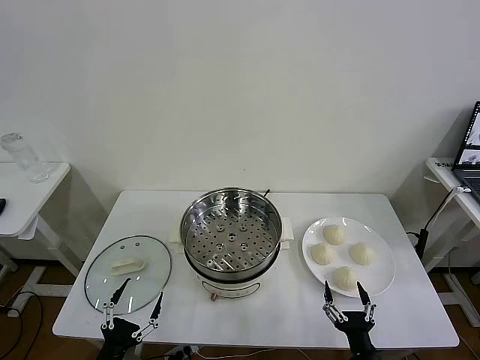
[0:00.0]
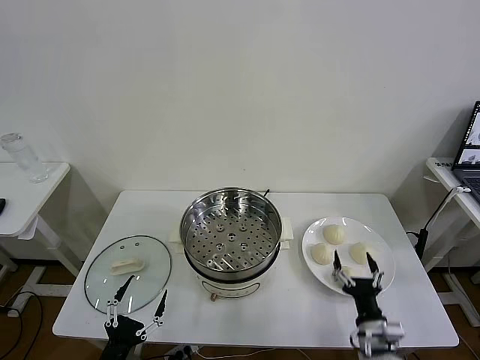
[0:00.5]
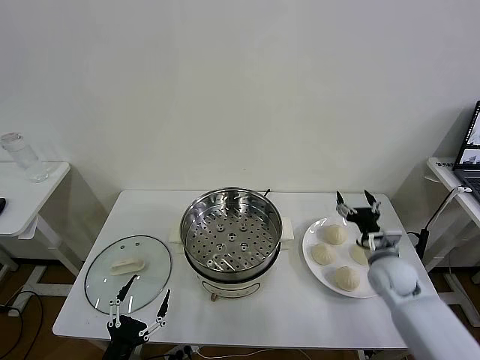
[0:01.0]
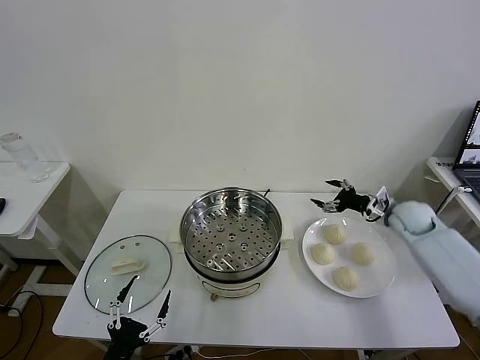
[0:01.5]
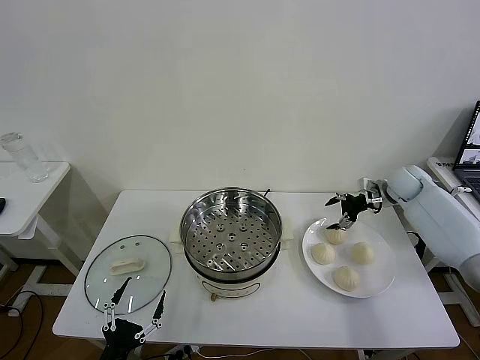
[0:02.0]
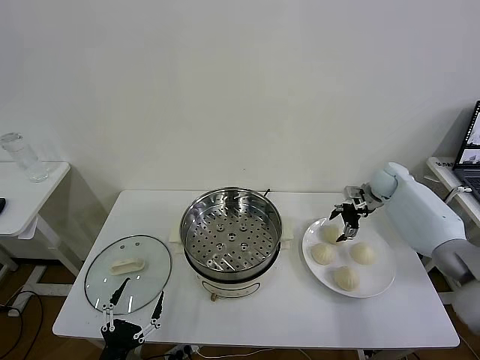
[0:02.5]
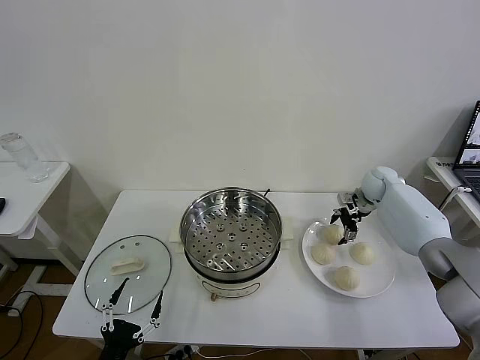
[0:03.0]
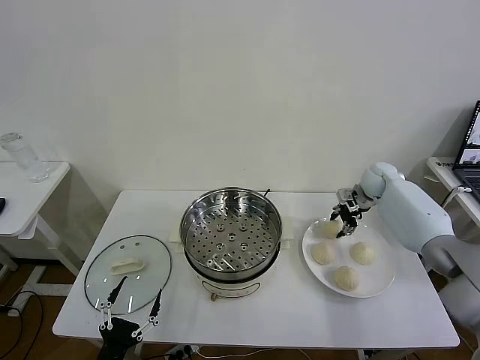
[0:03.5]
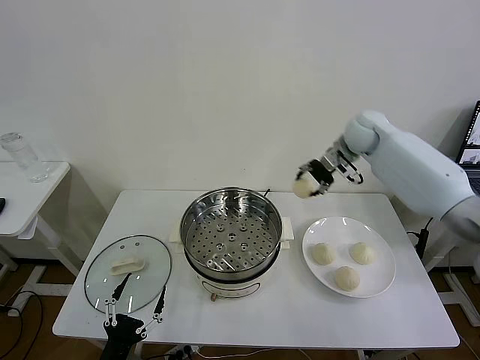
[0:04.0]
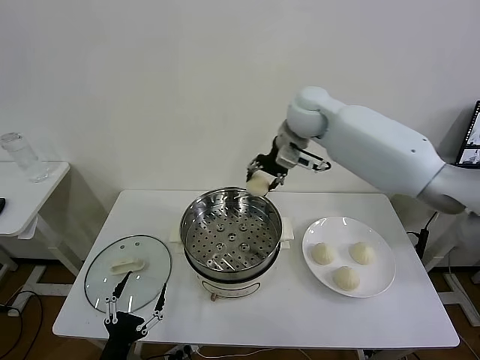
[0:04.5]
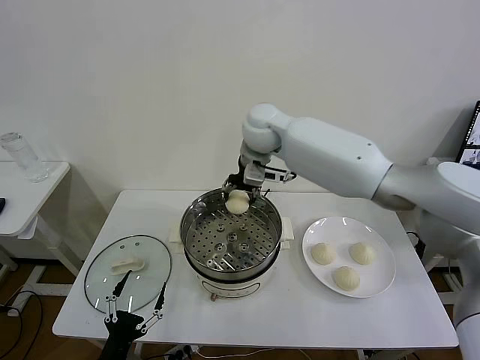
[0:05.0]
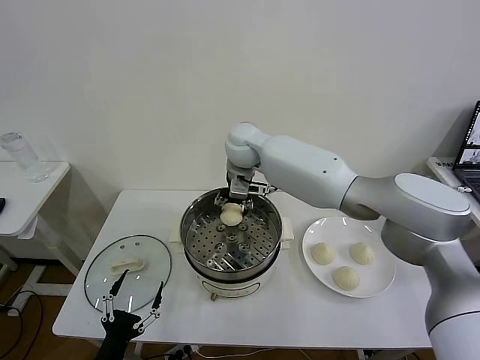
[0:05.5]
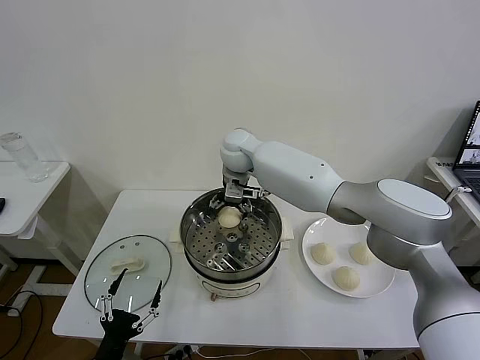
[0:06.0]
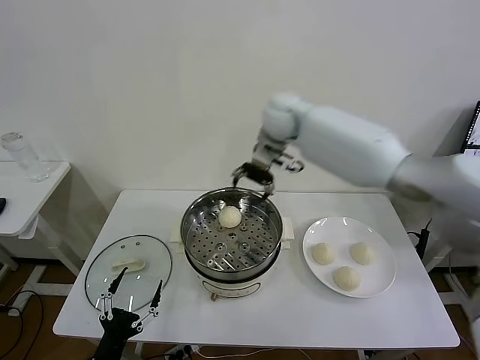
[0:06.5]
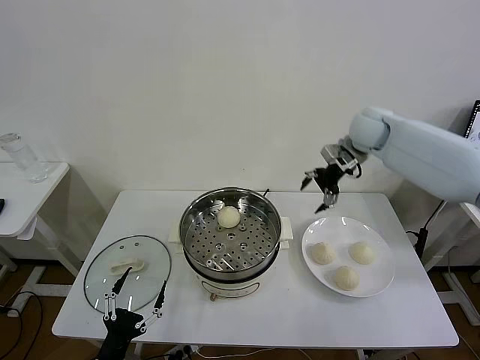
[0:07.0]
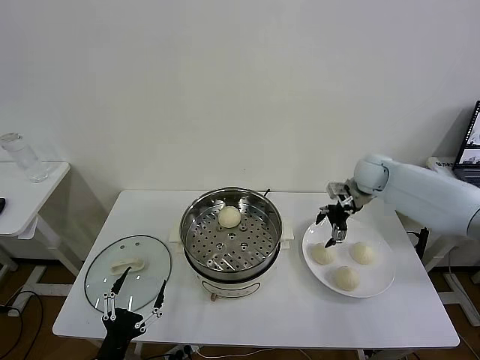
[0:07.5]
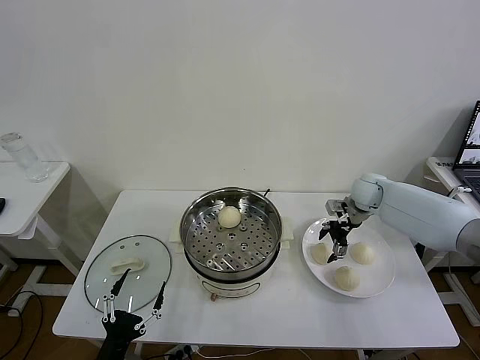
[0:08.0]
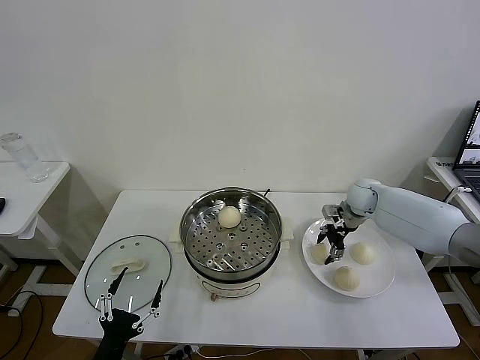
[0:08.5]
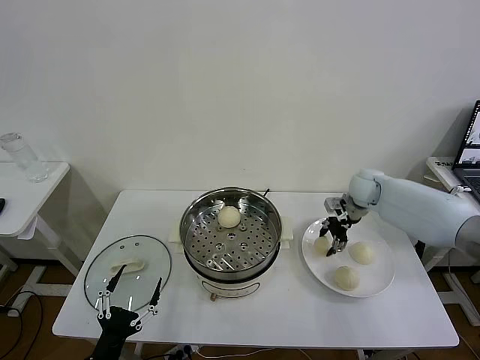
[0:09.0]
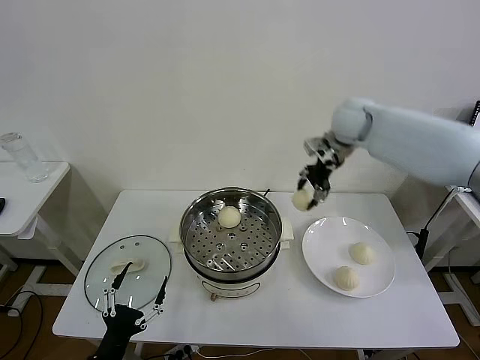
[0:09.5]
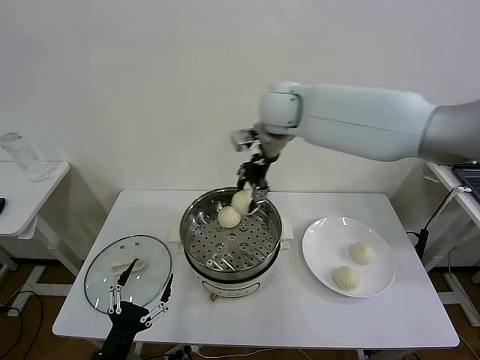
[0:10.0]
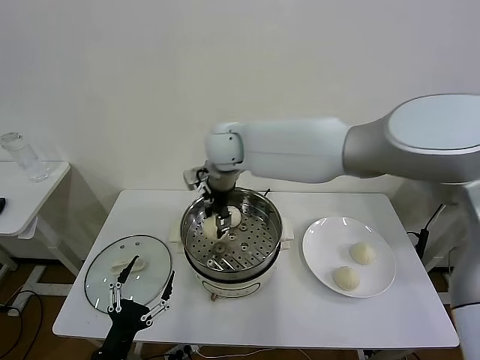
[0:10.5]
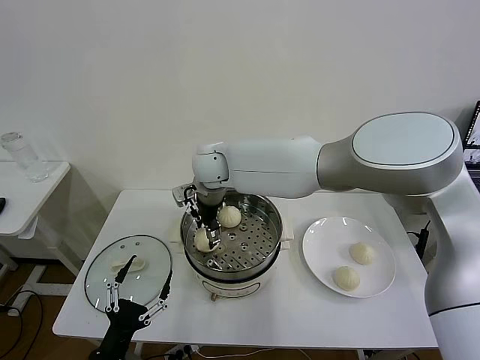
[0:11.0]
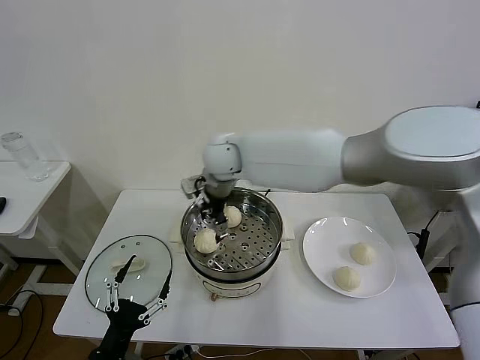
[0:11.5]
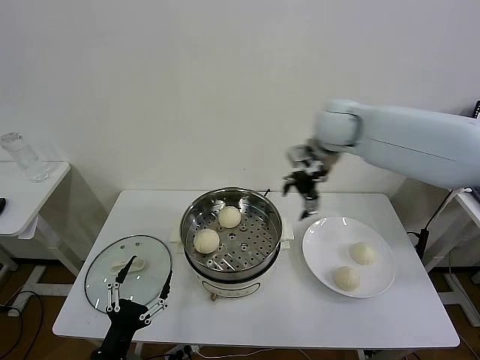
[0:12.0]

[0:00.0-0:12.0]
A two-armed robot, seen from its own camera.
Task of the whole recording: take steamed baozi put them in steamer then cover it.
Step, 0:00.0 to 0:03.0: Grasp the baozi in the plate with right gripper.
Step, 0:03.5 to 0:06.0: Place the baozi on the steamer with right gripper.
Step, 0:06.5 to 0:08.5: Grasp the baozi in the plate with right gripper.
Step, 0:09.0 to 0:11.0: Place the baozi on the steamer with right gripper.
0:02.0 to 0:04.0: The right gripper moves to the left and upward, roughly 25 cm, and closes its fingers.
0:04.0 to 0:06.0: The right gripper heads to the left, covering some 25 cm, and opens its fingers.
0:06.0 to 0:08.0: The right gripper travels to the right by about 35 cm.
0:08.0 to 0:10.0: The right gripper heads to the left and upward, covering roughly 35 cm, and closes.
0:10.0 to 0:12.0: The right gripper heads to the right, covering some 15 cm, and opens up.

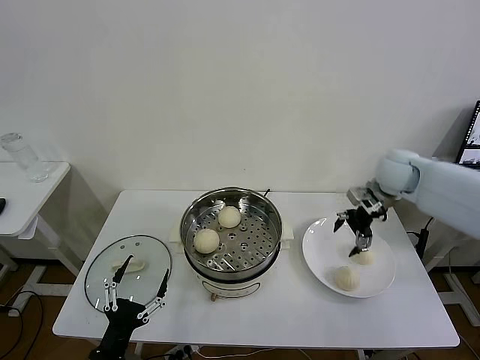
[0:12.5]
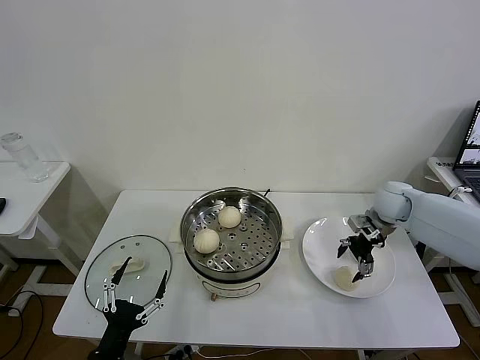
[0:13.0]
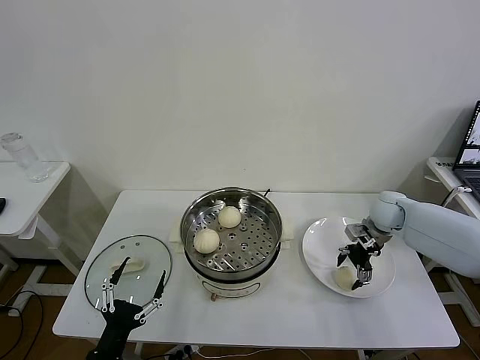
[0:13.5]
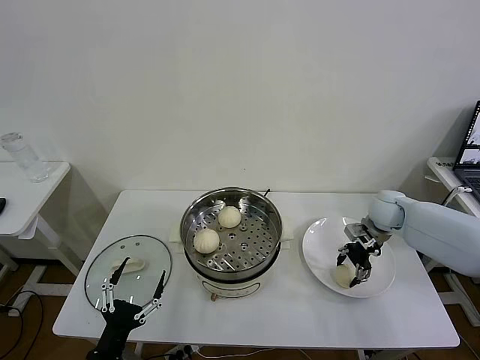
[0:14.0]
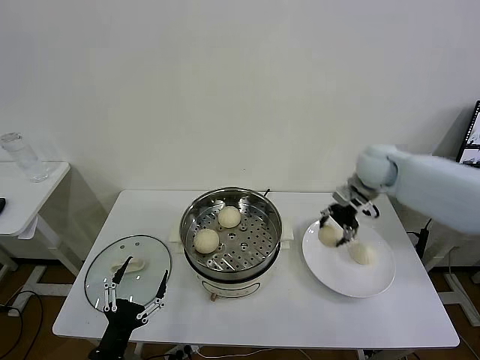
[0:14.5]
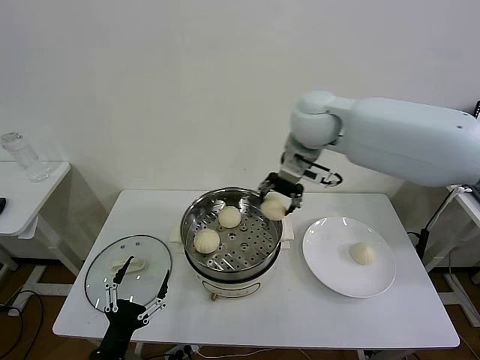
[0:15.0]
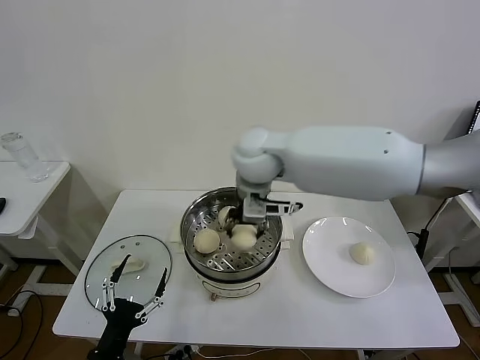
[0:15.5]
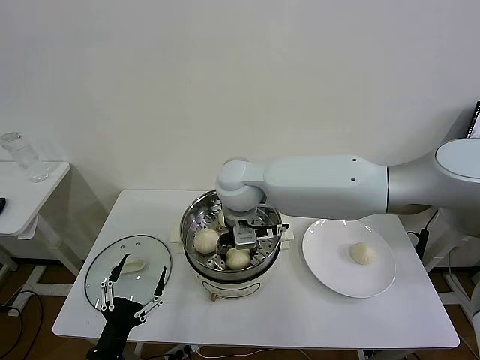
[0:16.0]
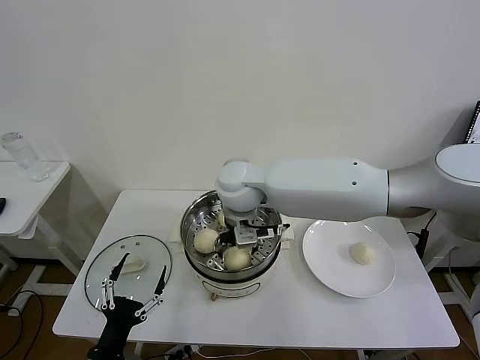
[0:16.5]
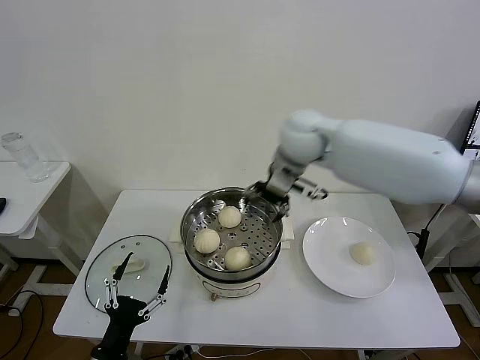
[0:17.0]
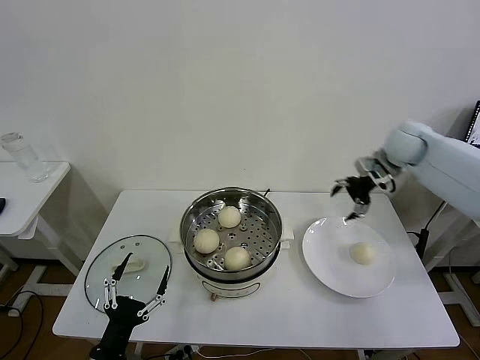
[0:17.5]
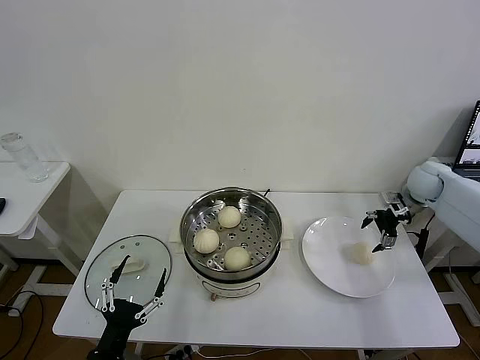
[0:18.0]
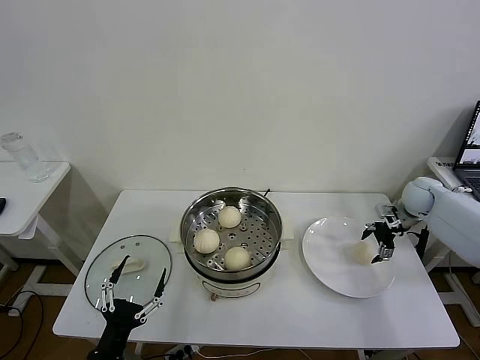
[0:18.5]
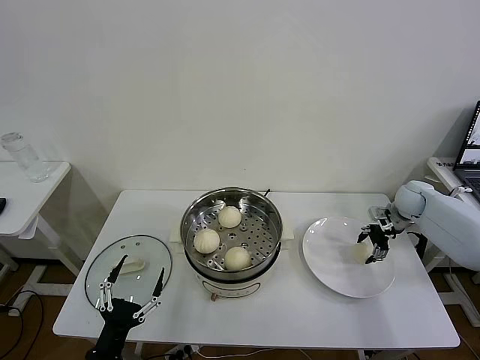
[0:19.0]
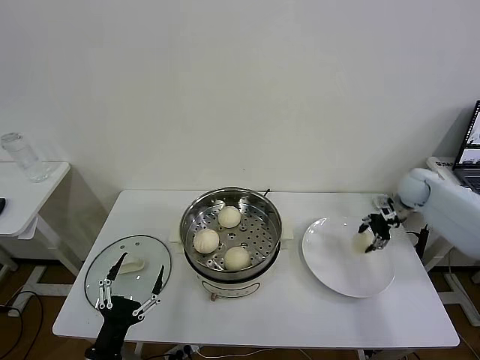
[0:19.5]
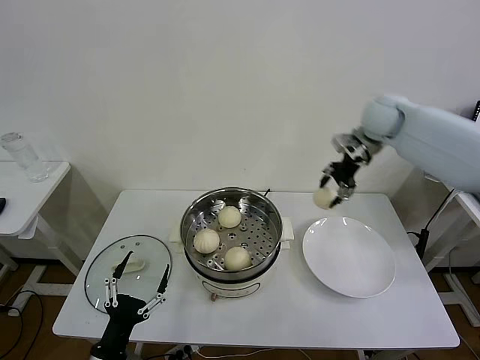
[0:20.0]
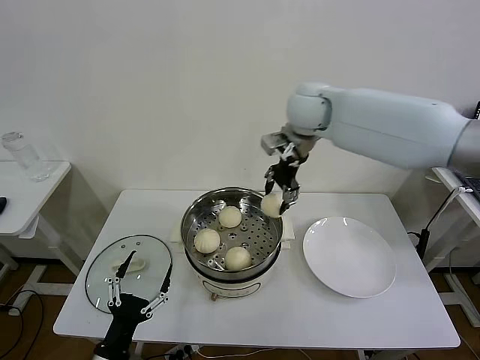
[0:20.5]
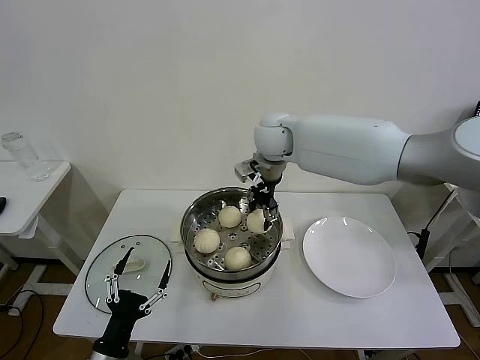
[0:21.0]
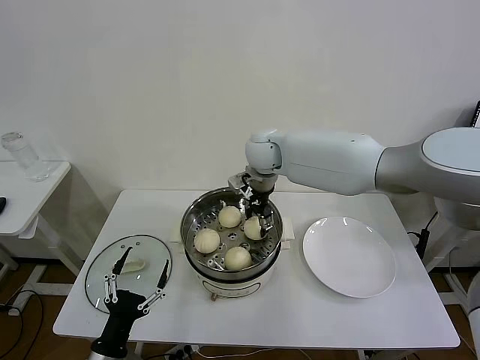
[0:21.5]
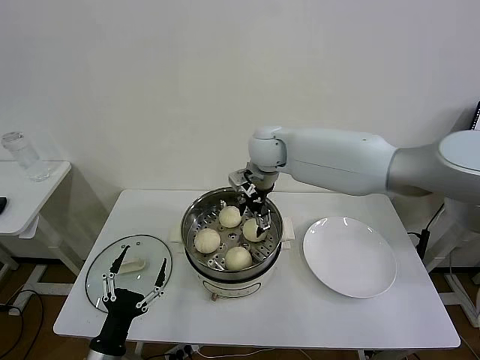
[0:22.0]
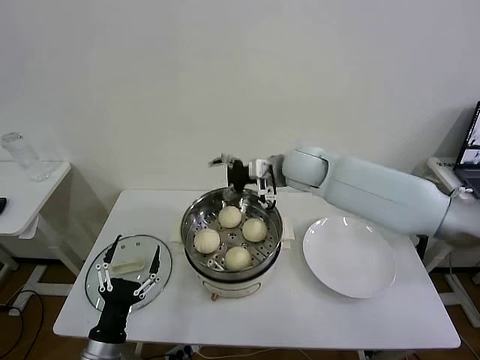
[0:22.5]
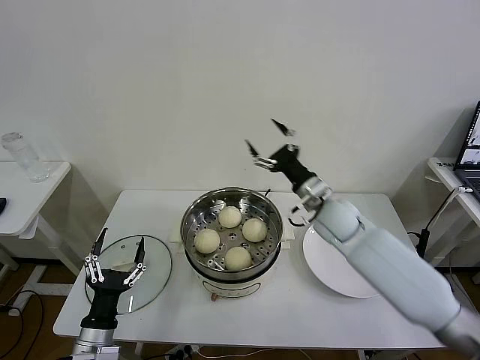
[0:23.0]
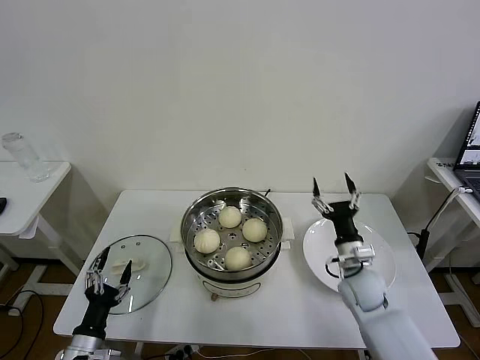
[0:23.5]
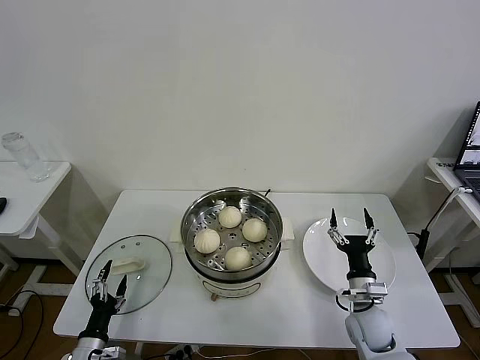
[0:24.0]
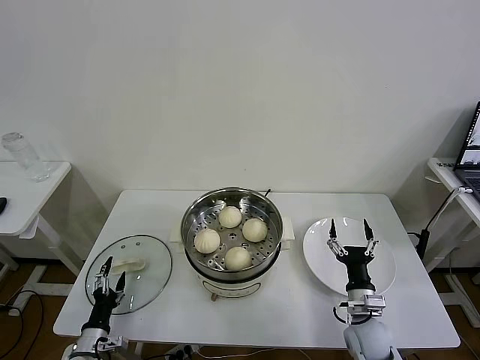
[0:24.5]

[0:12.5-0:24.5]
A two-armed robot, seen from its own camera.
Task of the whole recording: take steamed baozi put them in steamer then cover it.
Step, 0:14.5 to 0:16.0: Place the baozi on the steamer with right gripper.
Step, 0:17.0 to 0:19.0: Grasp the baozi in the plate with right gripper.
Step, 0:19.5 to 0:21.5: Place the baozi on the steamer with right gripper.
0:12.5 to 0:14.5: The right gripper shifts roughly 5 cm to the left, travels downward and back again, roughly 10 cm each way, and closes up.
0:14.5 to 0:16.5: The right gripper is displaced to the left by roughly 30 cm, and opens.
0:16.5 to 0:18.5: The right gripper is displaced to the right by roughly 50 cm.
0:18.5 to 0:20.5: The right gripper heads to the left and upward, covering approximately 40 cm, and closes.
0:20.5 to 0:22.5: The right gripper shifts about 10 cm downward and backward, and opens up.
0:22.5 to 0:24.5: The left gripper is displaced downward and to the left by about 15 cm. Meanwhile the right gripper is displaced downward, backward and to the right by roughly 40 cm.

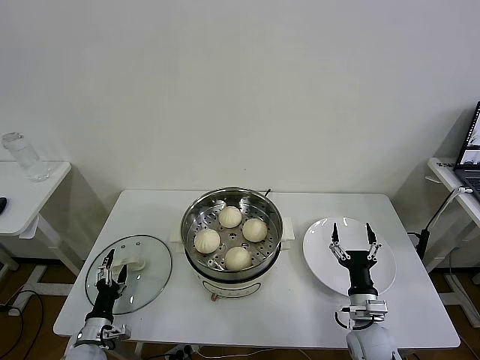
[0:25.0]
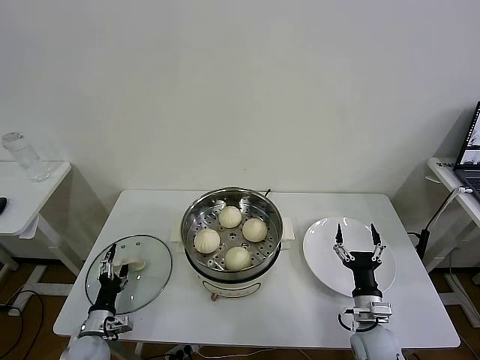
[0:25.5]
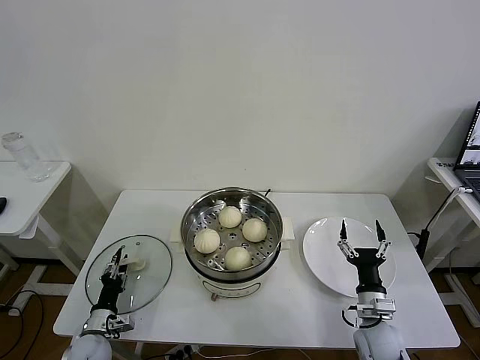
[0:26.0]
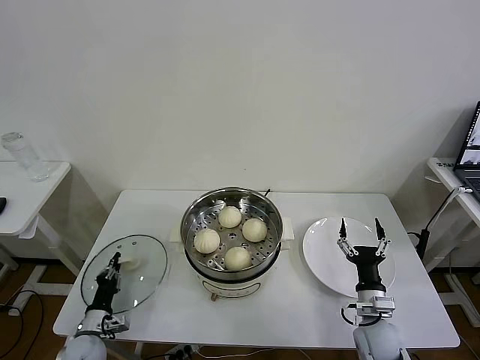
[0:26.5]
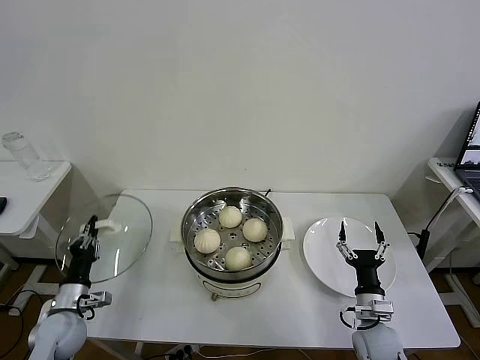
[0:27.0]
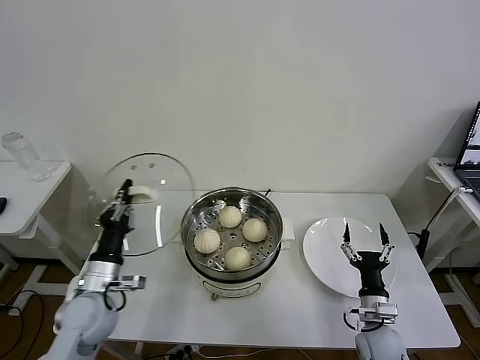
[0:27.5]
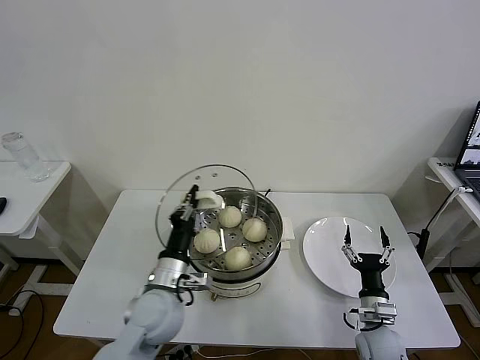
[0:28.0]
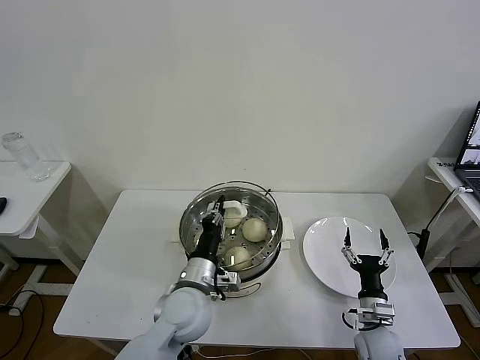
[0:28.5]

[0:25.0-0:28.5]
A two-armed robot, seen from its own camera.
Task of the whole recording: take steamed baozi put them in steamer then cover it.
0:25.0 to 0:27.0: The left gripper moves upward, some 10 cm, and closes.
0:27.0 to 0:28.5: The left gripper travels to the right by some 30 cm.
